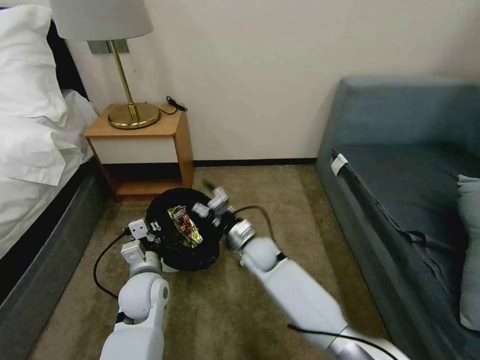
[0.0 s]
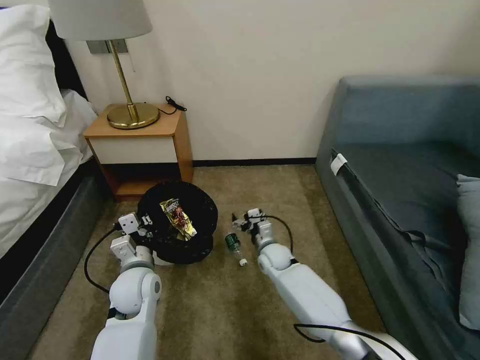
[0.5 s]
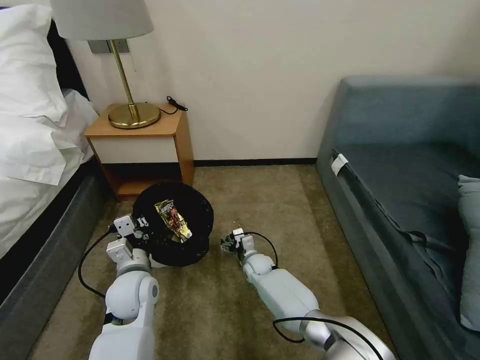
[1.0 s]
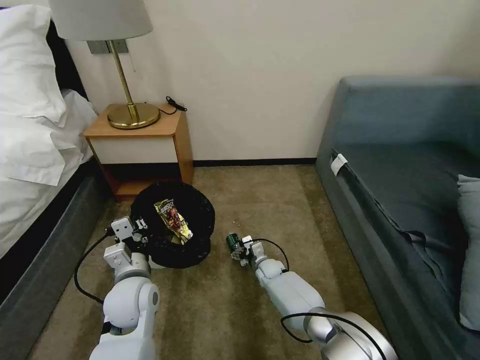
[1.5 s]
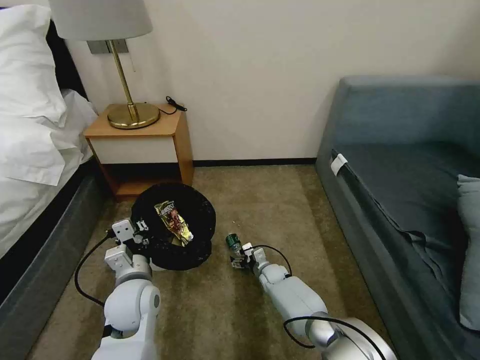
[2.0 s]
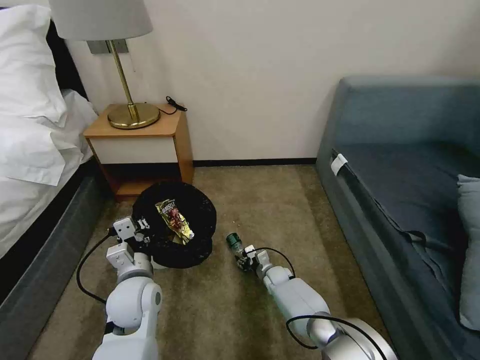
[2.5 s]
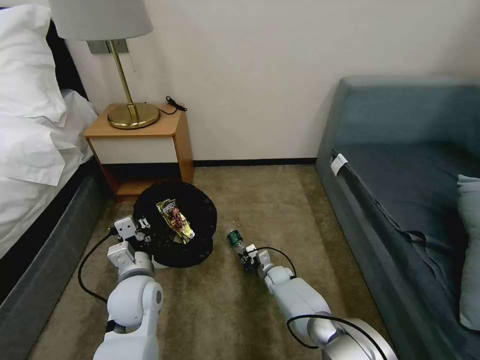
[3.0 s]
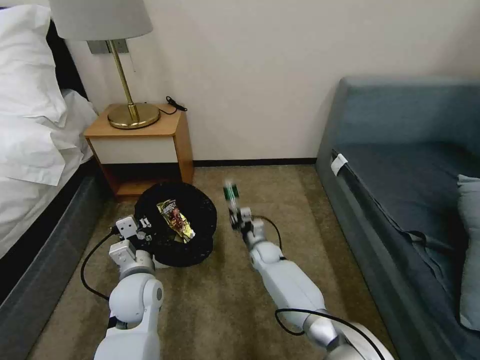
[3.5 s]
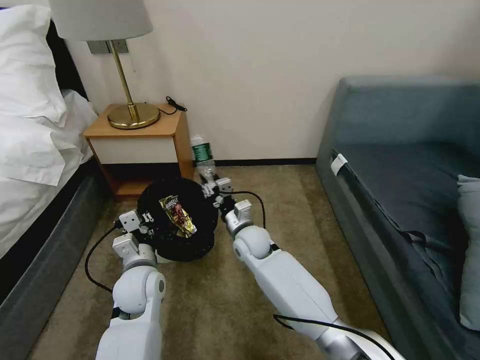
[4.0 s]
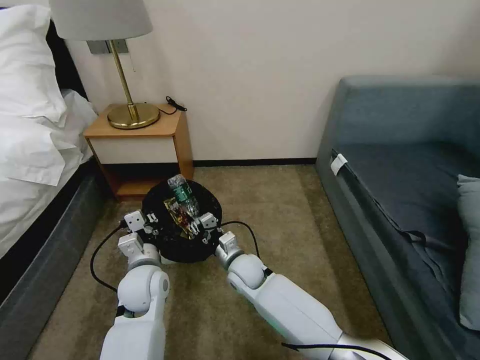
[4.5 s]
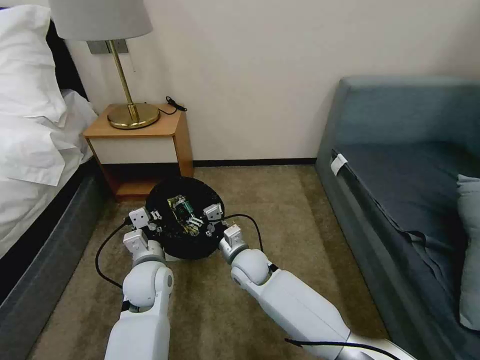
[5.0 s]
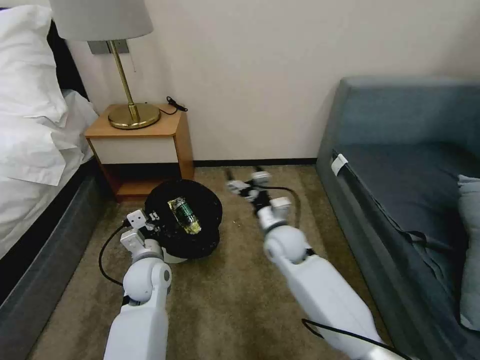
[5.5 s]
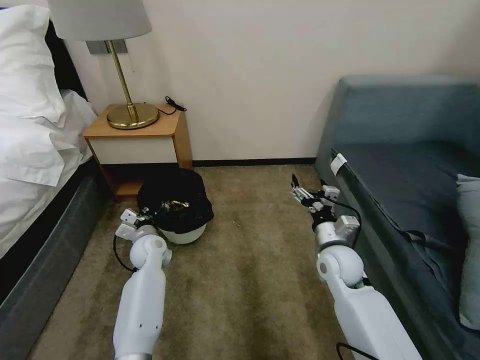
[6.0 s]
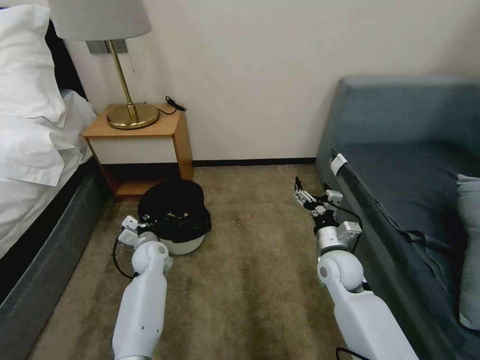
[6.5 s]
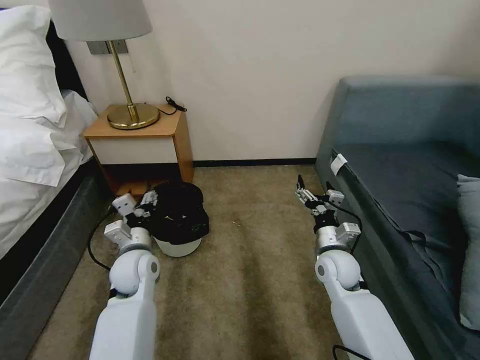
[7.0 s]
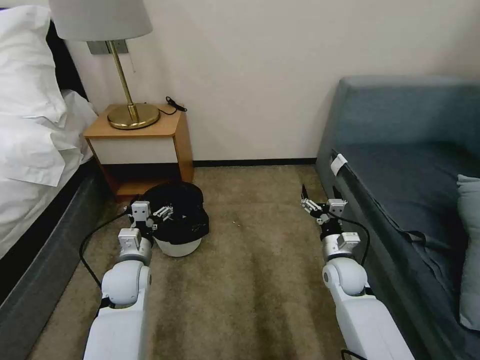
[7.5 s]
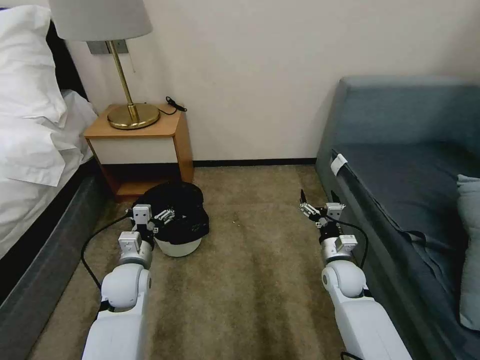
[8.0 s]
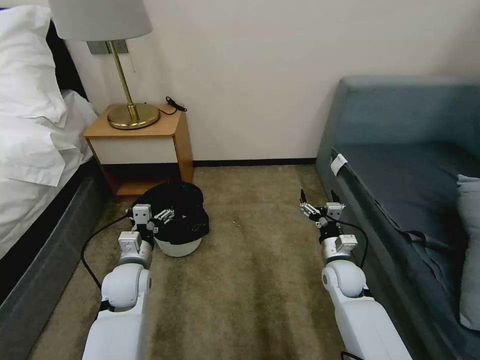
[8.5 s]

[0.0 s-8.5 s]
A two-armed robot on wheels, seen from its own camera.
Task of the whole recording: Pick up the trash bin, then pick up the garbage on the floor and place it into the trash bin.
0.0 to 2.0 s: The right gripper goes about 20 cm downward.
2.0 to 4.0 s: The right gripper is displaced upward and to the left by about 25 cm, and closes its fingers.
4.0 to 6.5 s: The right gripper moves to the right, some 20 cm, and opens; the left gripper heads forward and downward, covering about 15 cm.
6.5 to 8.5 s: The right gripper is displaced downward by roughly 5 cm. Meanwhile the left gripper travels backward and upward by some 15 cm, and opens its fingers.

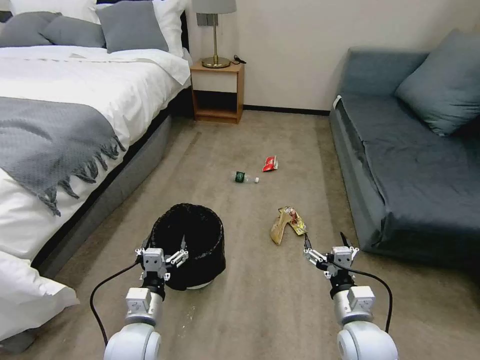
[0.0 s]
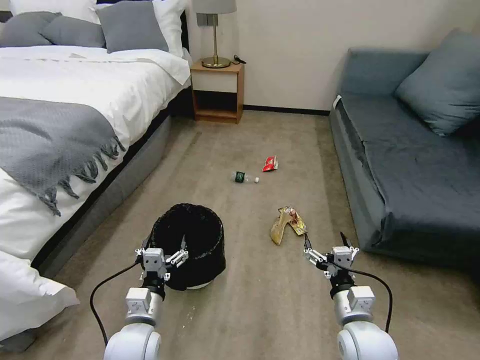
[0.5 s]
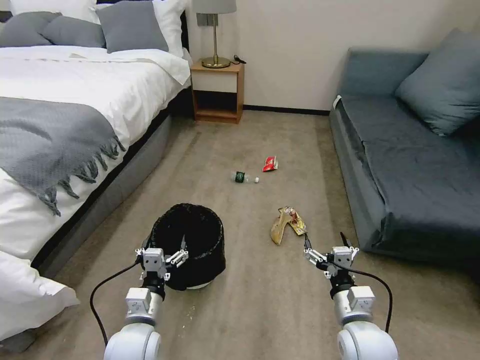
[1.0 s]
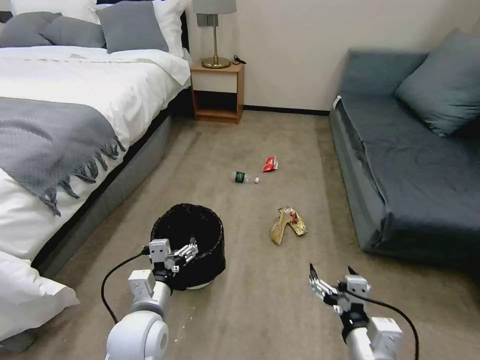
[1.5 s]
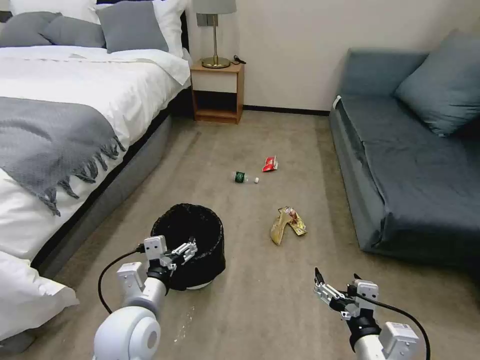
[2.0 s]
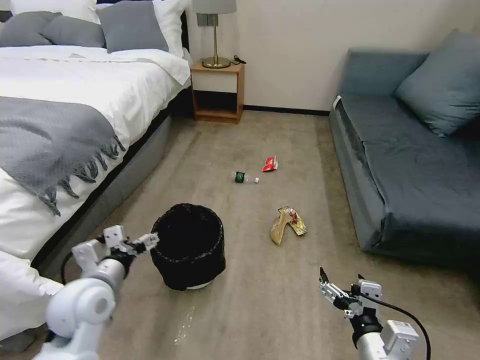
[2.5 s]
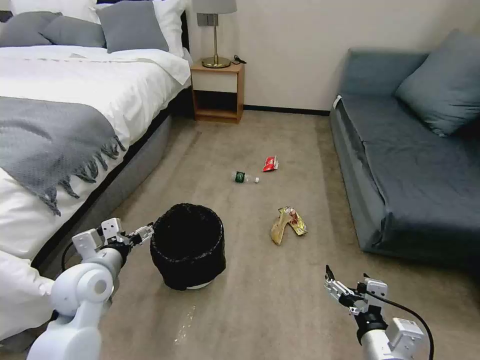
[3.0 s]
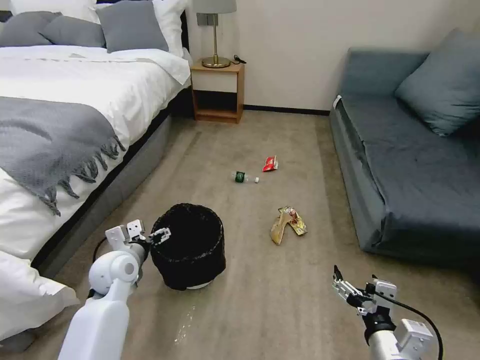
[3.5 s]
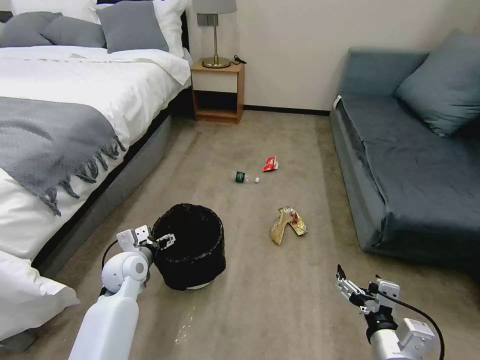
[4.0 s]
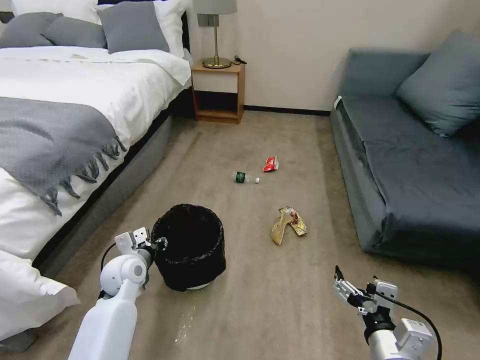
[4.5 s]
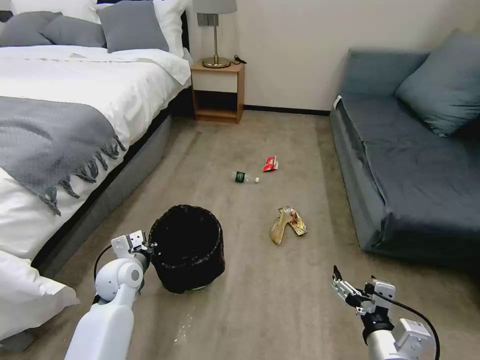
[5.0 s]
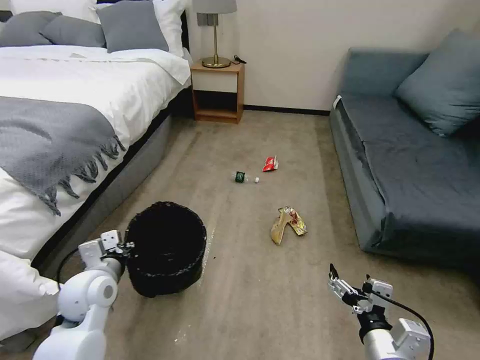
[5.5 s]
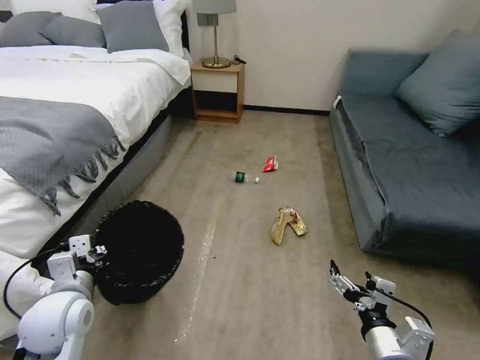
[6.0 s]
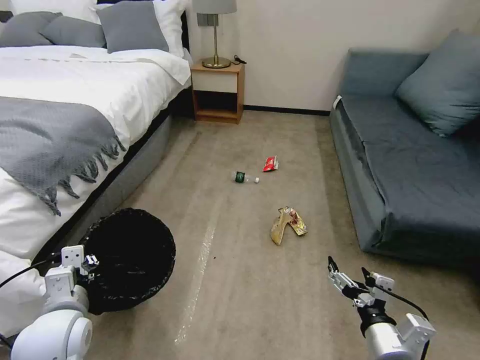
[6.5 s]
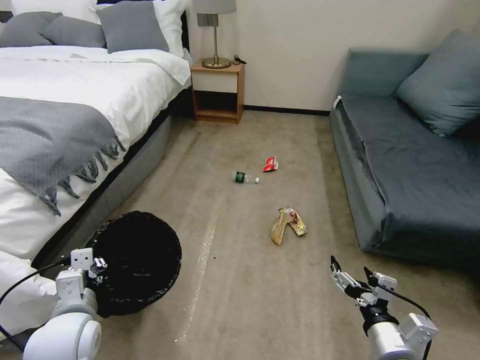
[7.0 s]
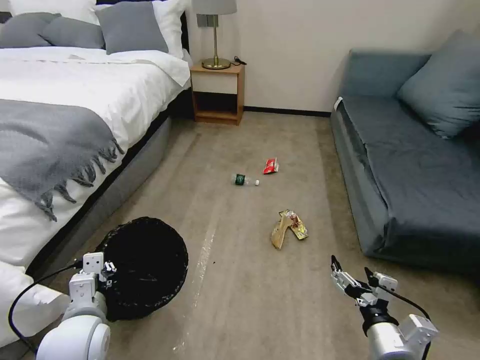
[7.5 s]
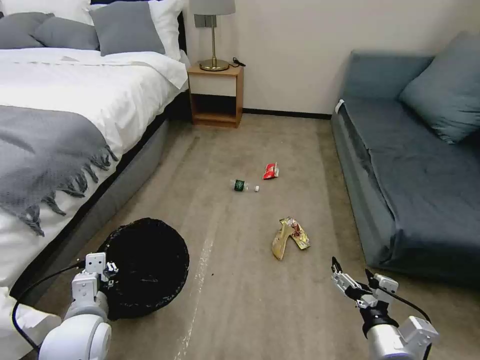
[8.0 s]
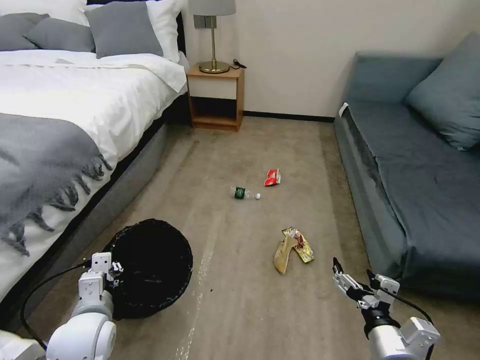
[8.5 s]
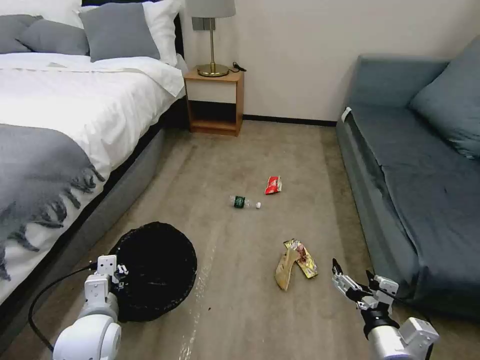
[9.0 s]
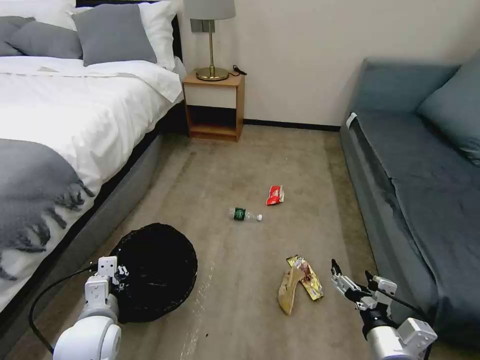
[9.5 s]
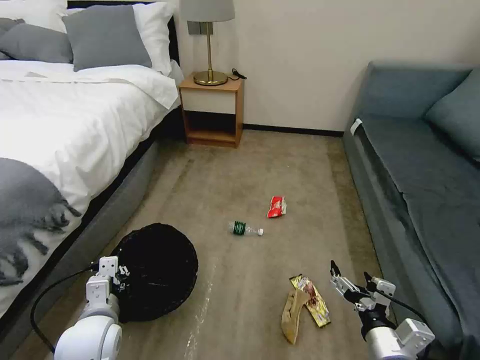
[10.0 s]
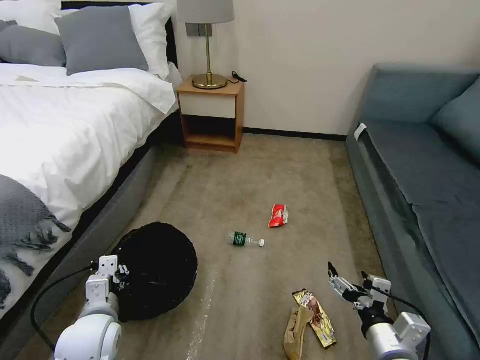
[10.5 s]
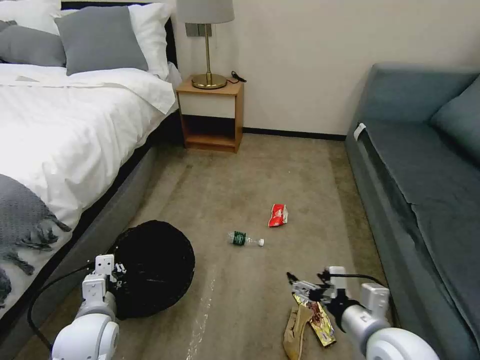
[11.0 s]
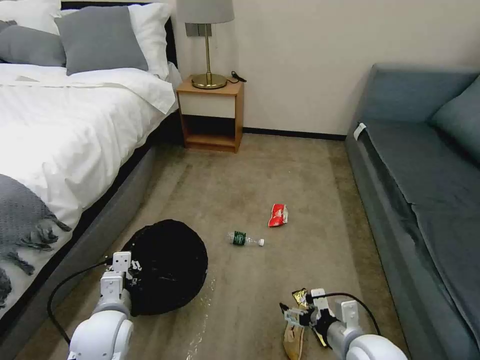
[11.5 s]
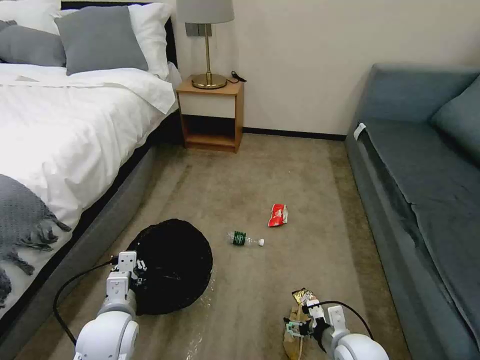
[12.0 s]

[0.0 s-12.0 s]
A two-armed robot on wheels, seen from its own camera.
Task of the whole recording: Pick up the trash bin, then pick up the garbage on the floor and place it into the trash bin.
2.0 to 4.0 s: The left gripper is displaced forward, to the left and downward by some 20 cm; the right gripper changes place by about 5 cm.
4.0 to 6.0 s: The left gripper goes about 15 cm backward and upward, and closes its fingers.
6.0 to 8.0 s: The left gripper moves about 5 cm.
10.0 to 12.0 s: The right gripper travels downward and forward by about 10 cm.

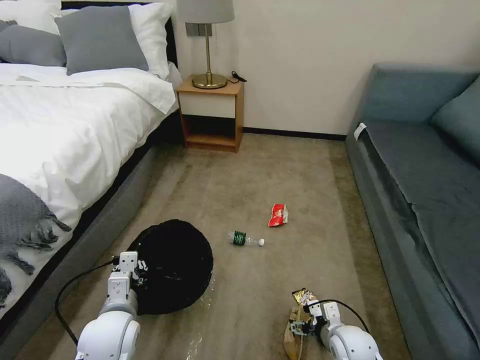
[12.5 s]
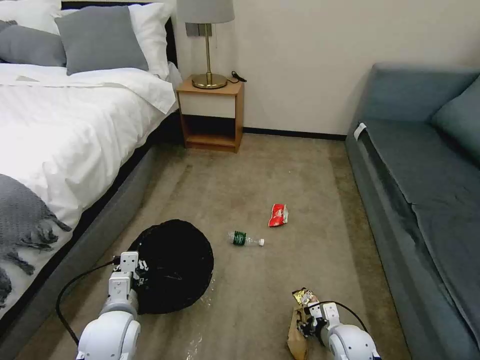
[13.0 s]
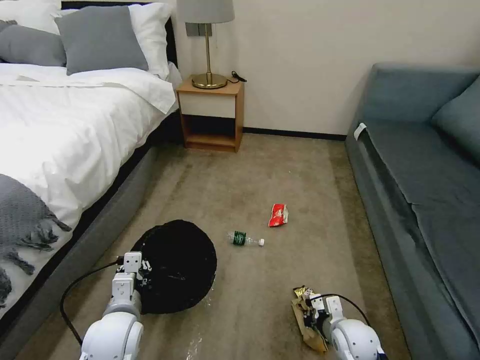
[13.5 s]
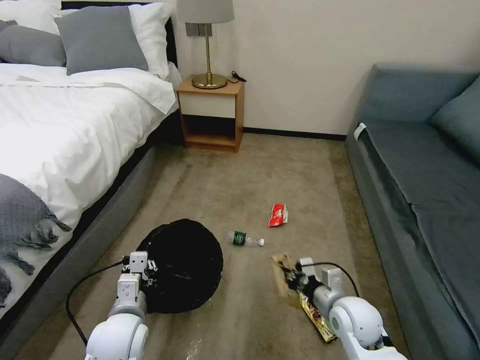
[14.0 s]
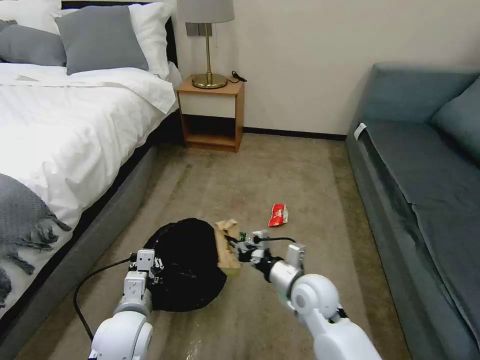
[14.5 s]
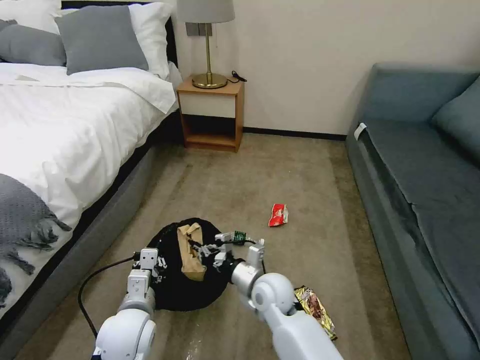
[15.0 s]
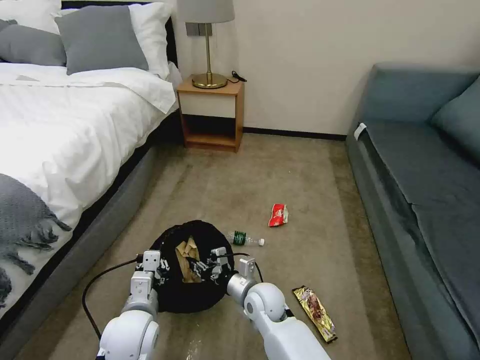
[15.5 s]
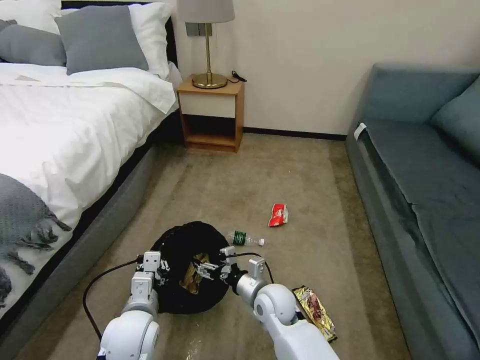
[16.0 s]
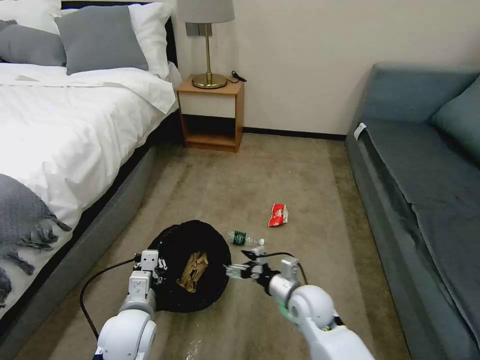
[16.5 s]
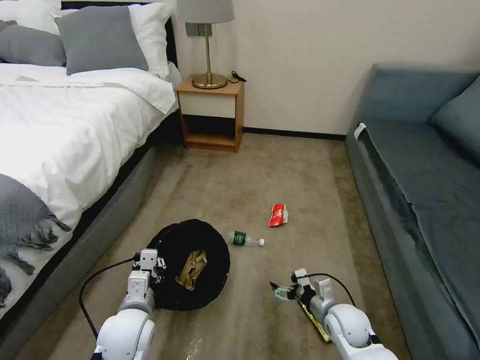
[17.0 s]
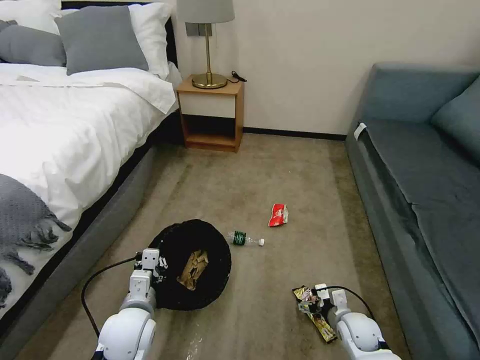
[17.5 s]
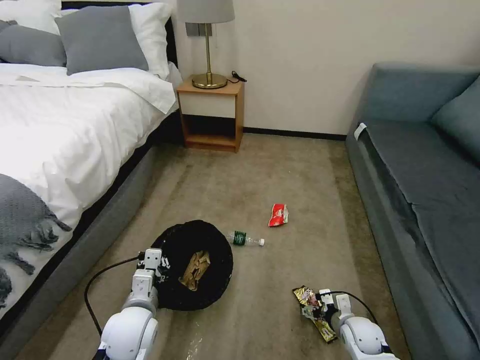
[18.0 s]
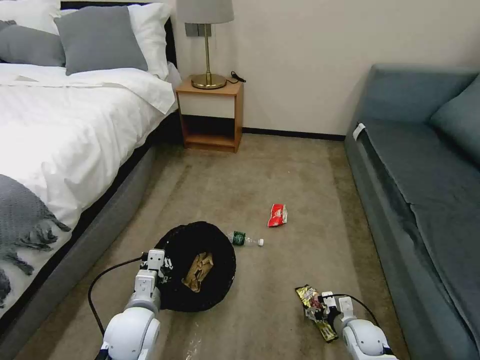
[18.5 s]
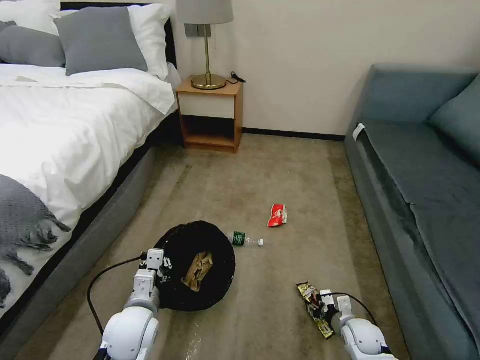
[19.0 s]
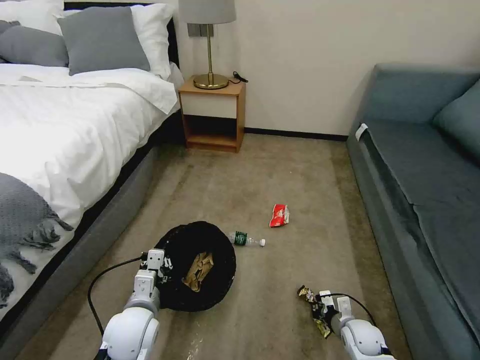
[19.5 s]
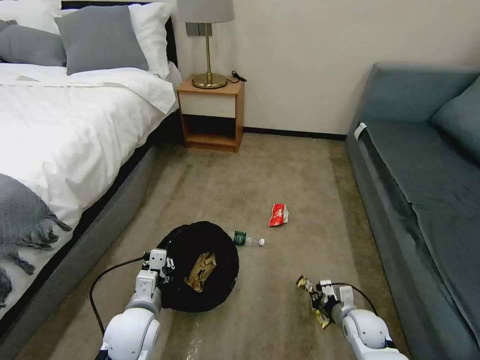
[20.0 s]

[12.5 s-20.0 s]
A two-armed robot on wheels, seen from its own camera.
Task of the whole recording: Pick up the trash bin, then pick up the garbage on the floor and place it into the trash bin.
12.5 to 14.5 s: The right gripper goes roughly 20 cm upward, to the left and forward, and closes.
14.5 to 16.5 s: The right gripper travels downward by about 5 cm, moves about 10 cm to the left and comes back, and opens its fingers.
16.5 to 18.0 s: The right gripper is displaced to the right and downward by roughly 20 cm.
18.0 to 20.0 s: The right gripper closes up.
